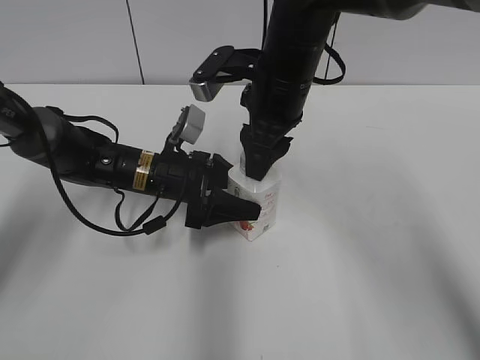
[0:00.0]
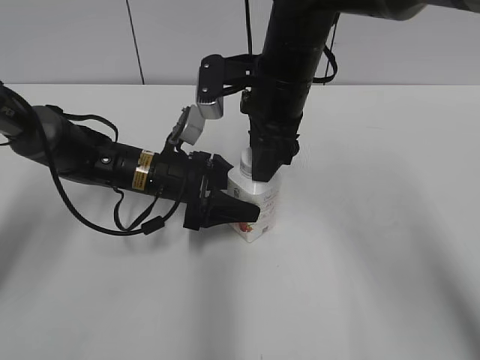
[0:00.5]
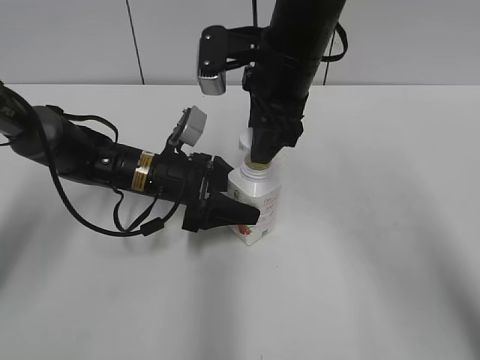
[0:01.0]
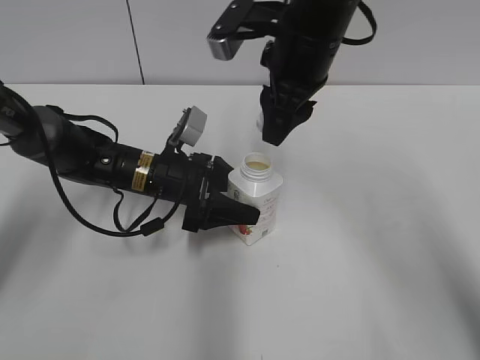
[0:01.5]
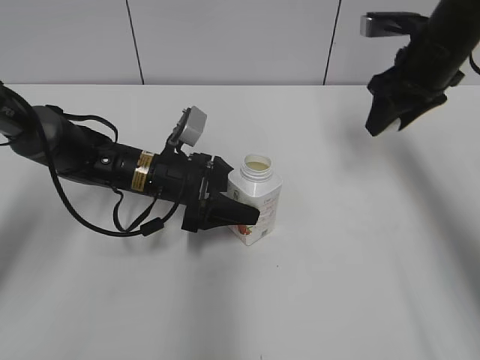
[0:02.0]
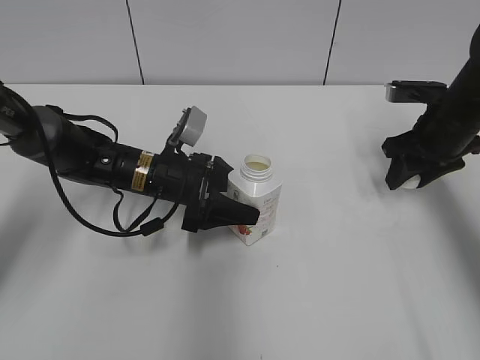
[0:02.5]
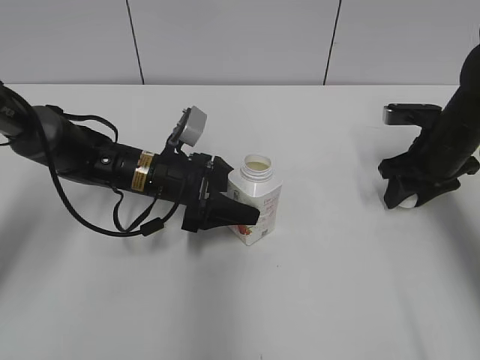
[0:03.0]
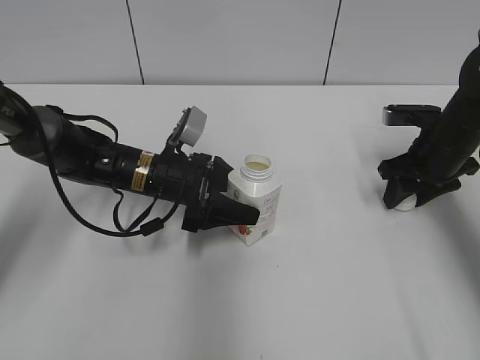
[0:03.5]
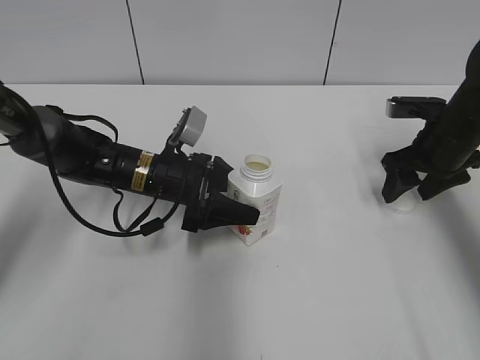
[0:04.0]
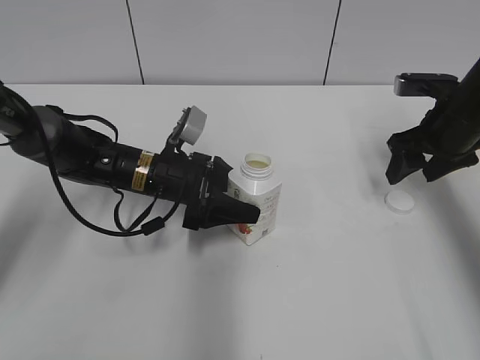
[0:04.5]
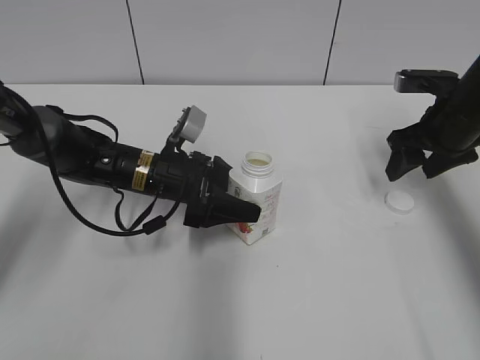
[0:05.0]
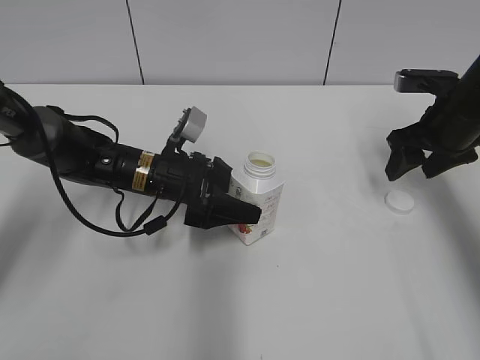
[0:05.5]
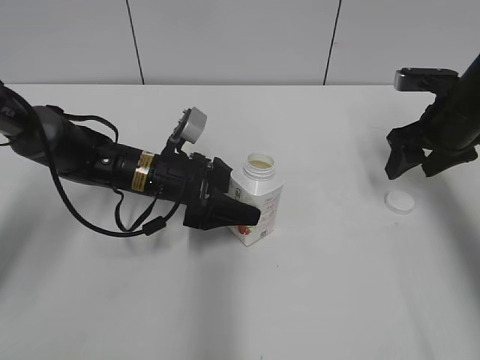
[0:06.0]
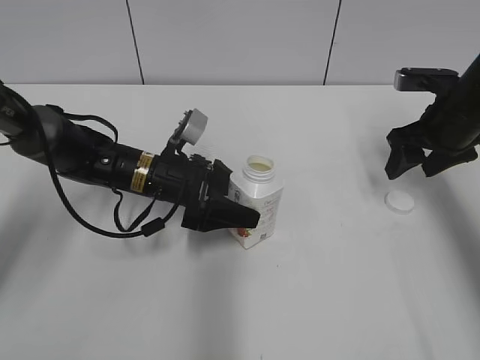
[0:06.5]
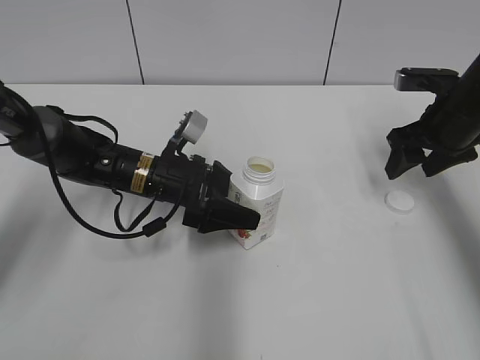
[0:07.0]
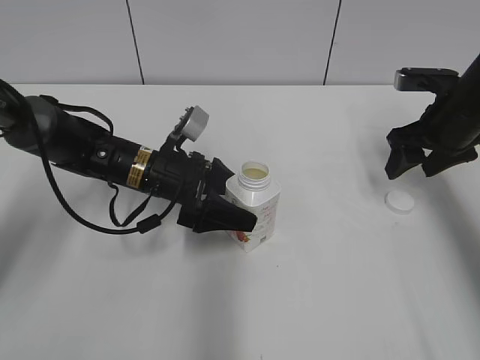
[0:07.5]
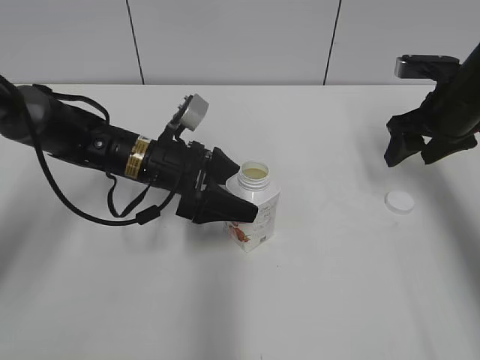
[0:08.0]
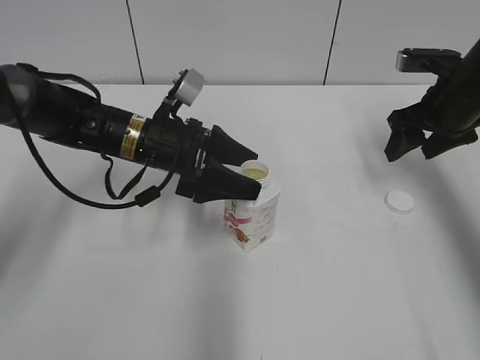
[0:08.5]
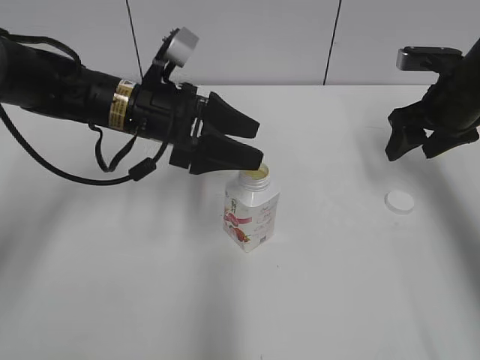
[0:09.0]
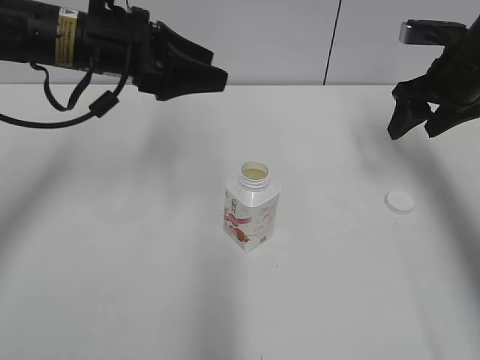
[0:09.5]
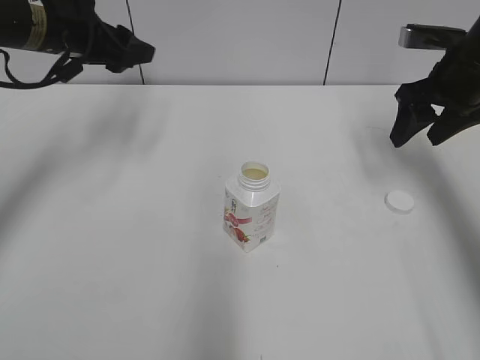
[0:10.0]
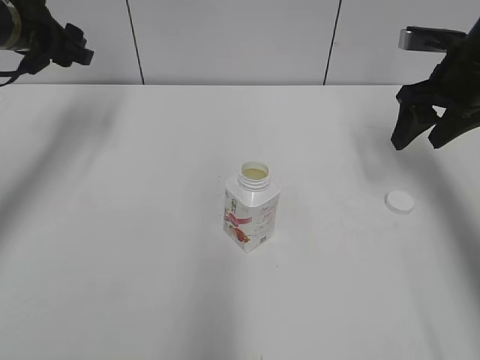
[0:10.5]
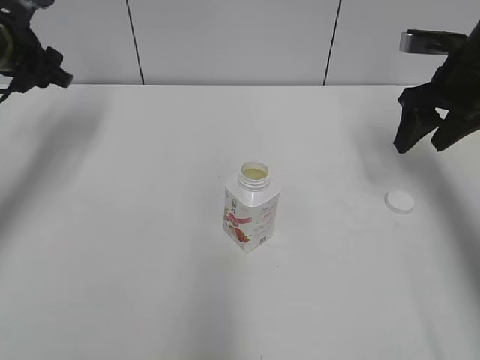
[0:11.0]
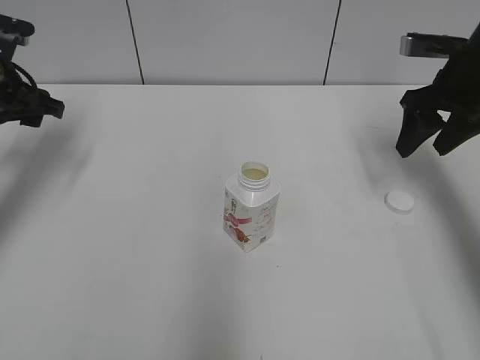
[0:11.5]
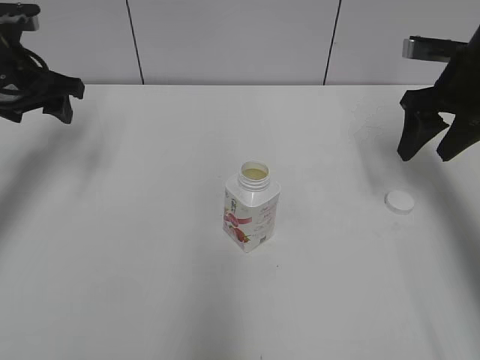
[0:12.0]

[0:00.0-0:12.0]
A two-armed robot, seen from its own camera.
Step, 0:01.5 to 0:03.5: Place the bottle cap on the right.
Step, 0:04.5 to 0:08.0: Place the Yili Changqing with the left hand.
0:00.0 to 0:02.0: The right gripper moves to the right, about 20 cm.
0:02.0 to 0:04.0: The right gripper is displaced downward by approximately 10 cm, and opens its fingers.
0:04.0 to 0:08.0: There are only small adjustments of the grippers.
0:08.0 to 0:10.0: The left gripper shifts about 20 cm upward and to the left, and closes up.
0:10.0 to 0:12.0: The left gripper goes some 5 cm to the left.

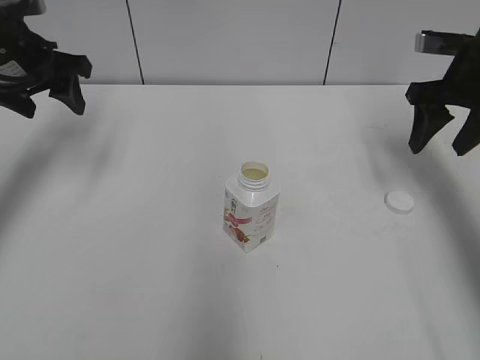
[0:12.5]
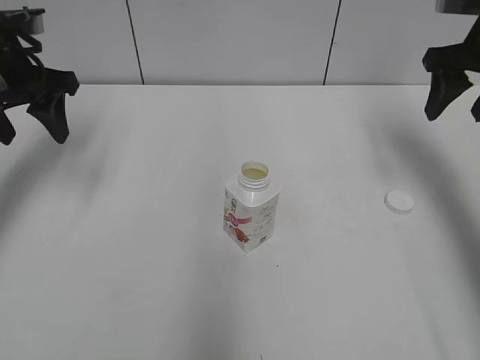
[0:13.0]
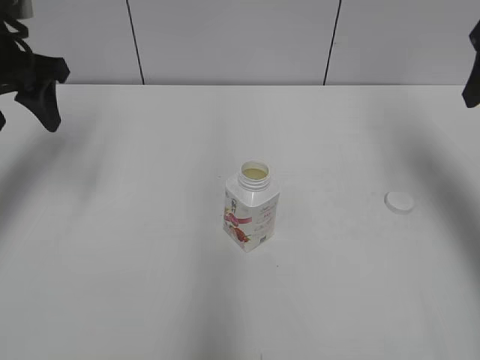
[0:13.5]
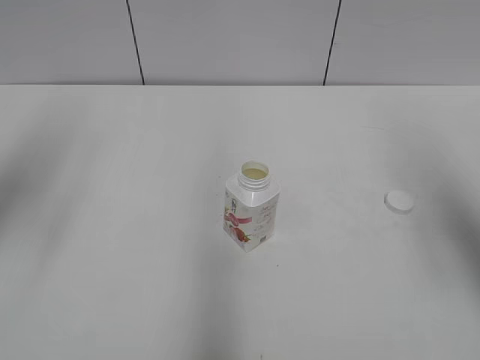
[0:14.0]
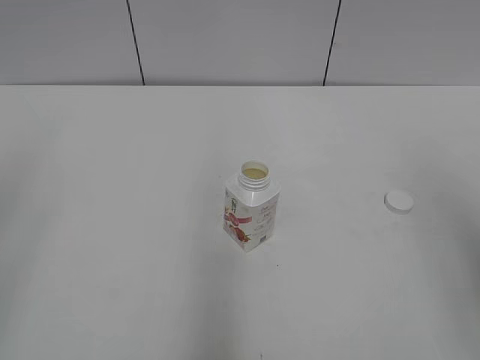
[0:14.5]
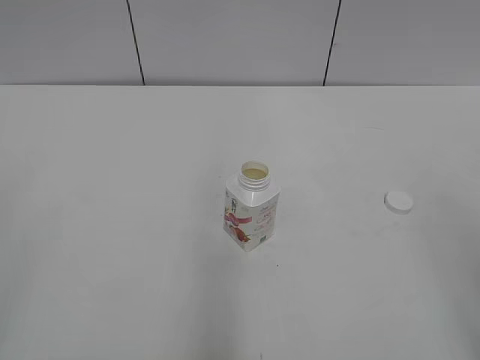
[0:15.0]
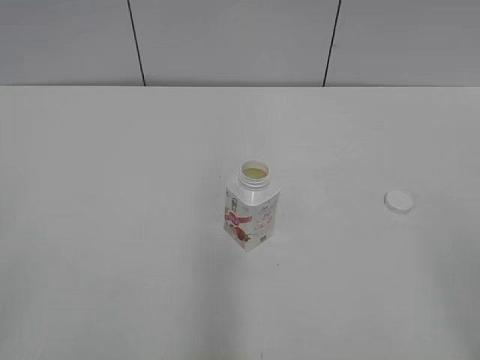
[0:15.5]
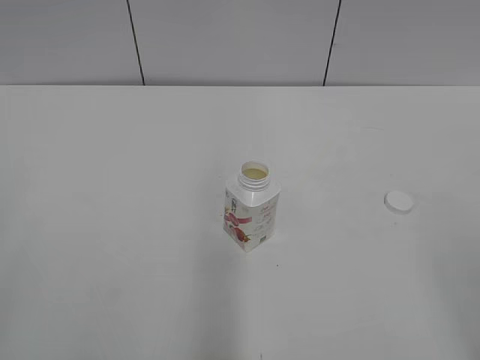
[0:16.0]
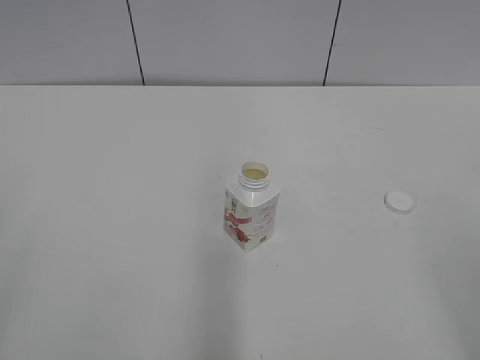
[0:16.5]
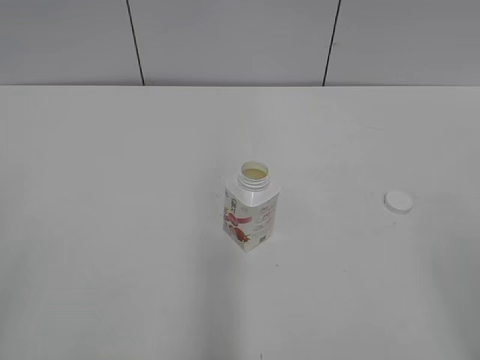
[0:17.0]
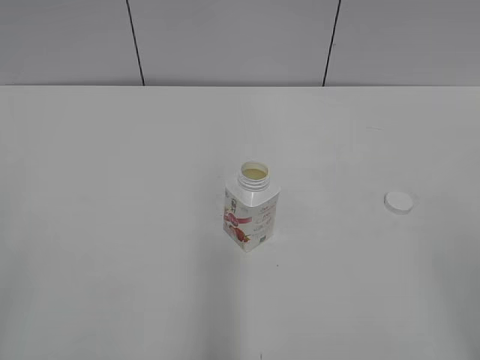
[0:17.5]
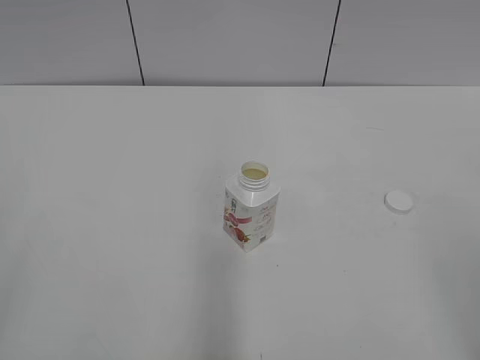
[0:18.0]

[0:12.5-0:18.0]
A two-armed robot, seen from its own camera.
0:12.5 to 0:14.5: The right gripper goes roughly 30 cm backward and upward. The left gripper shifts roughly 30 cm backward, and closes.
0:16.0 to 0:18.0: Both grippers stay put.
